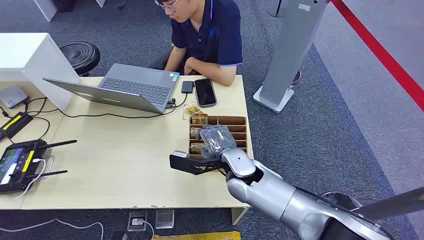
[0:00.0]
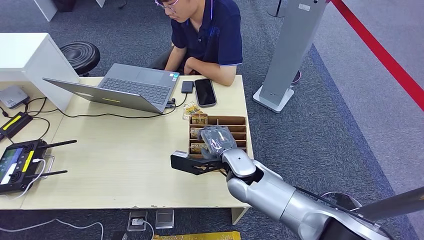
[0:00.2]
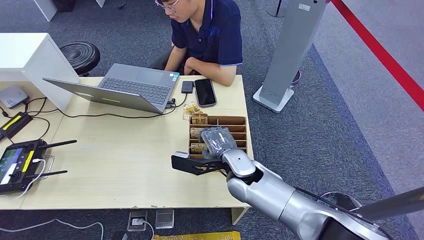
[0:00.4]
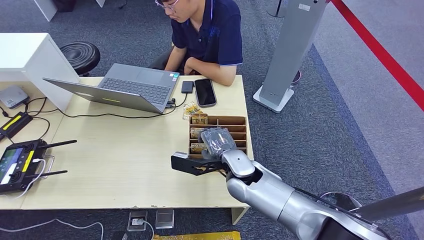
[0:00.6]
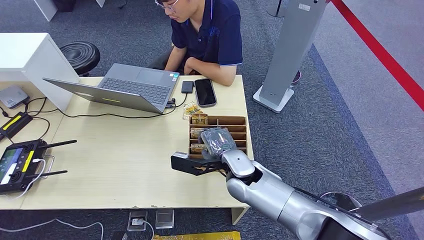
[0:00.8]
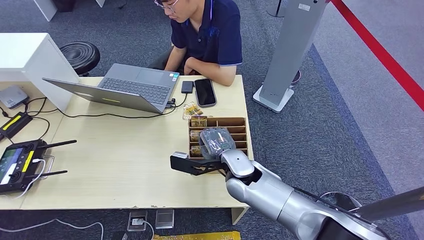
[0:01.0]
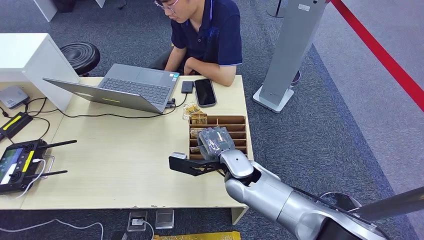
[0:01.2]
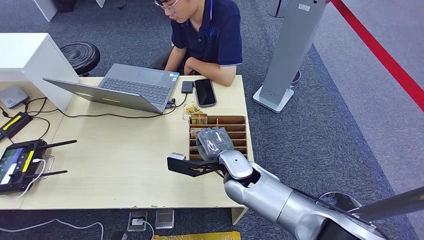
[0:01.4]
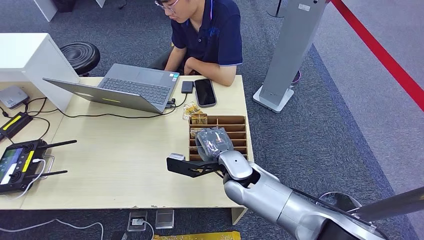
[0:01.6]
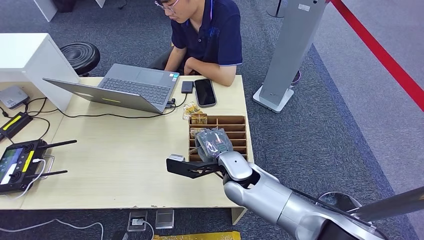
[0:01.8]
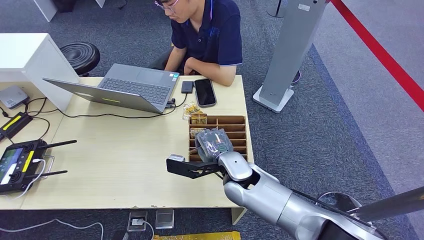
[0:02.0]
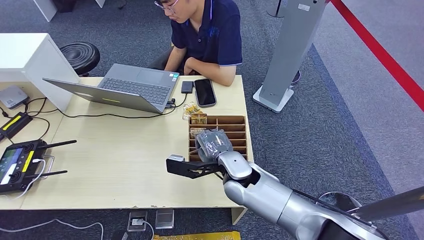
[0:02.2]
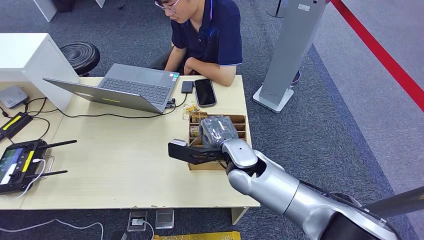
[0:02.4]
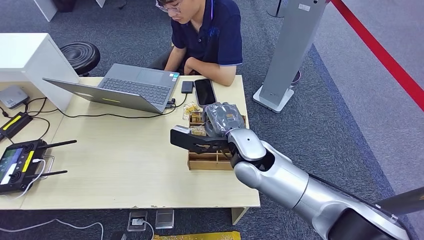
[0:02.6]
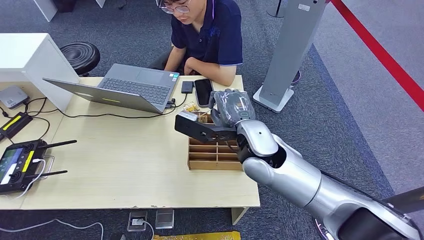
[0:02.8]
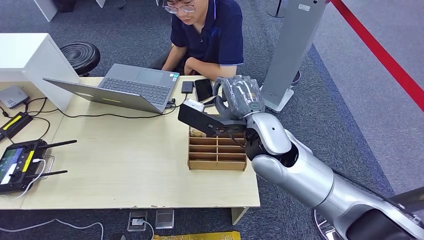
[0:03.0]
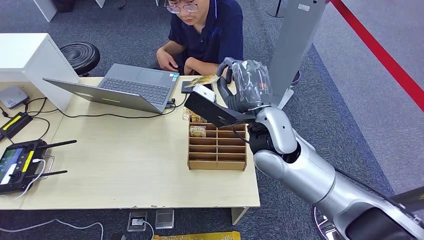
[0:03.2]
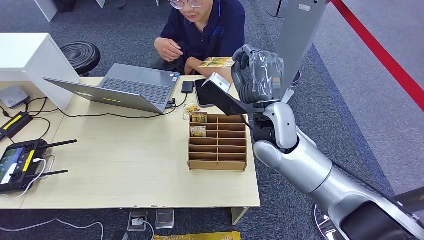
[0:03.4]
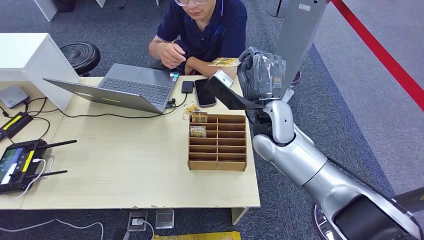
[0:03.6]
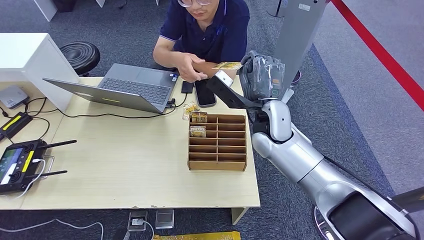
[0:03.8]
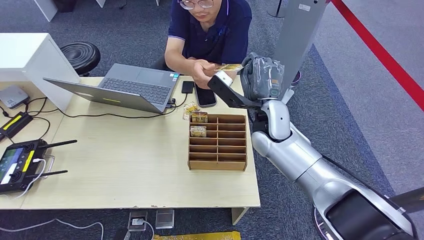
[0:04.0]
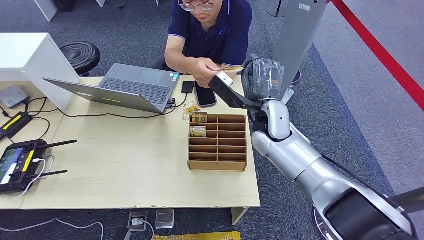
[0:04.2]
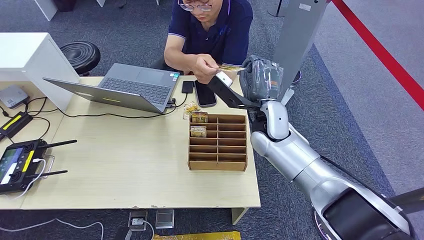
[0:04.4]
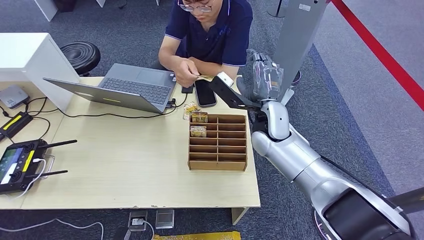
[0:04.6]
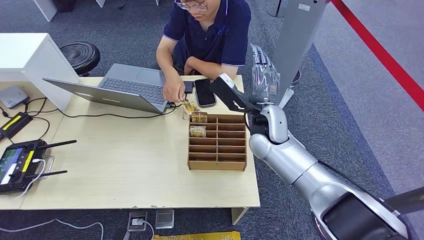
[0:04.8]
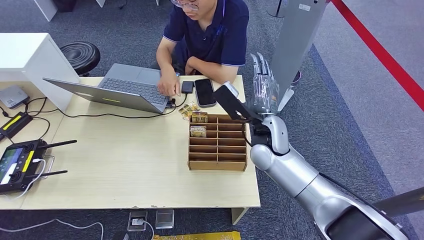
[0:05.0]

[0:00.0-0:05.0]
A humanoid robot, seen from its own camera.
Step, 0:00.0 to 0:03.0: Pick up the key card from the card box.
Step, 0:03.4 to 0:05.0: Hand the key card to the target.
0:01.6 to 0:03.4: The right hand moves upward and to the right, some 15 cm.
0:03.4 to 0:05.0: The right hand heads downward, covering approximately 5 cm.

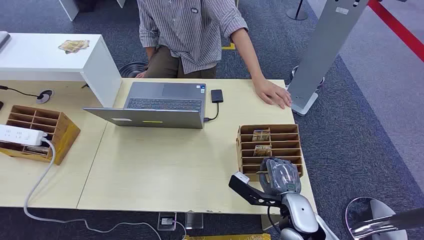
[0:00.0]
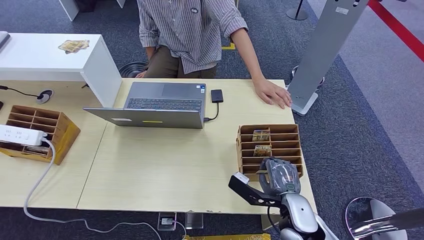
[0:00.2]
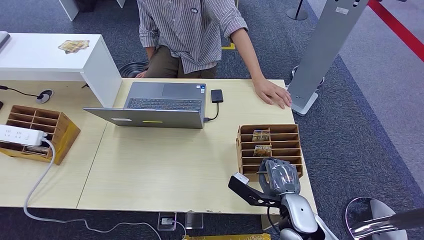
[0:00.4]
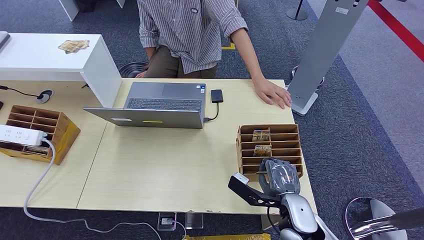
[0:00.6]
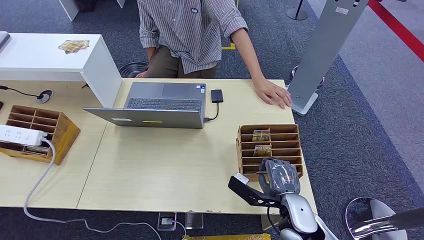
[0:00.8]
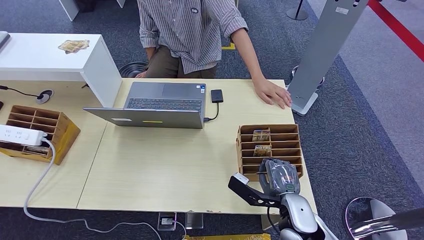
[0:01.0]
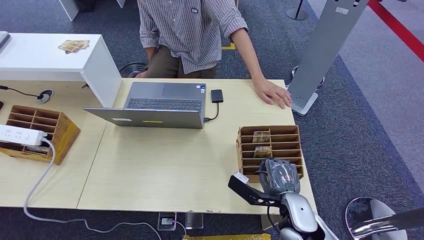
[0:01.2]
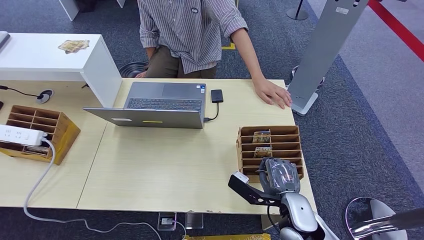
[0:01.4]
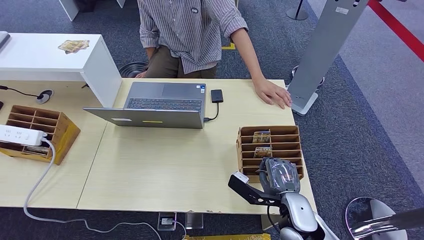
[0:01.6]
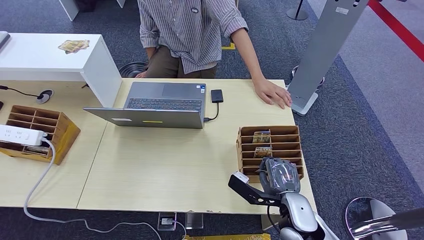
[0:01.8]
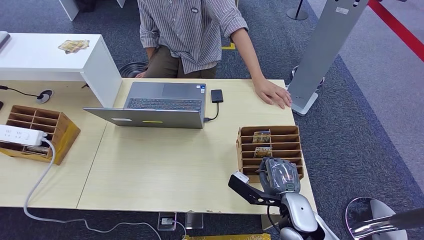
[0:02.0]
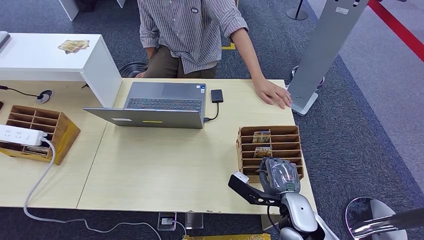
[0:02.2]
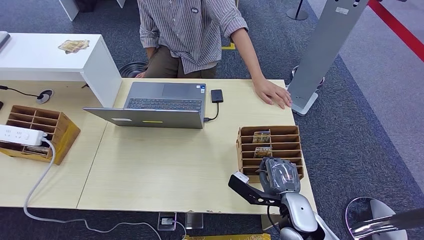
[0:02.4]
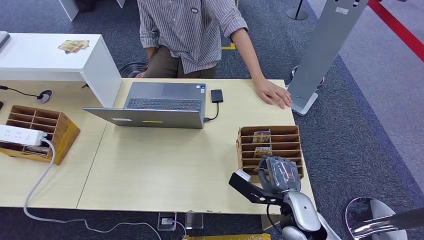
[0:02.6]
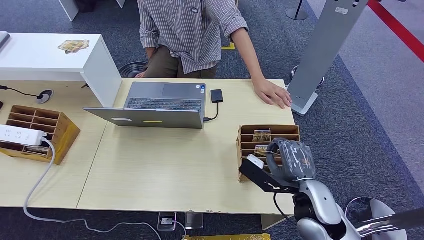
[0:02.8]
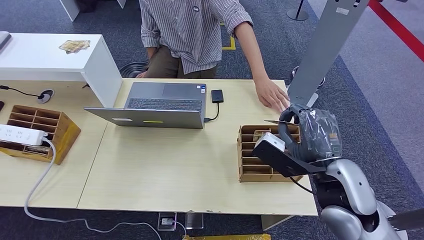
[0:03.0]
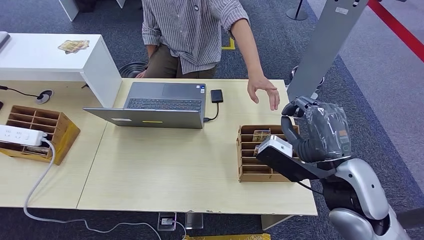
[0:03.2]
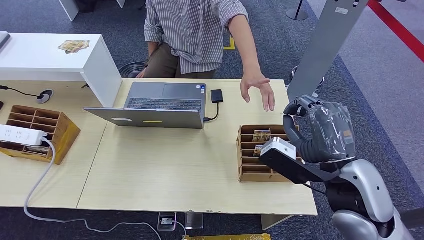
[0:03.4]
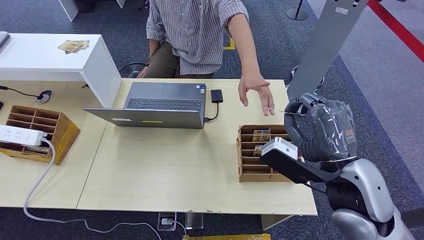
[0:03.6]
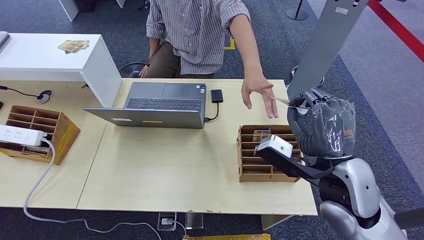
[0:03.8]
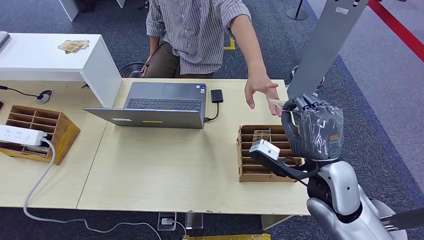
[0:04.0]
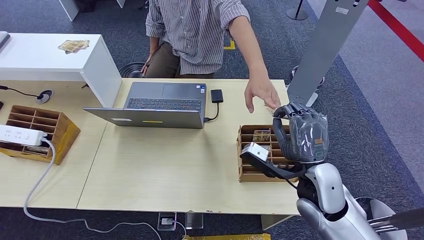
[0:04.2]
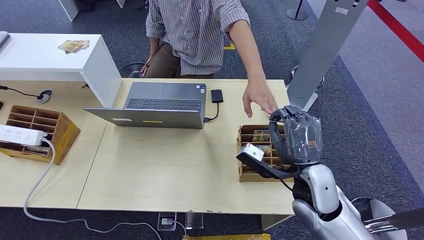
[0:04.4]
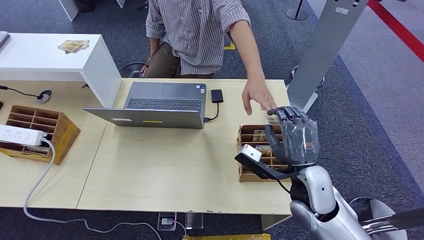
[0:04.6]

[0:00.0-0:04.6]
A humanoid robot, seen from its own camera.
Step, 0:00.0 to 0:02.8: Pick up the key card from the card box.
Step, 0:03.4 to 0:04.6: Hand the key card to the target.
0:01.6 to 0:03.0: The right hand travels upward by approximately 15 cm.
0:03.0 to 0:04.6: The right hand goes approximately 5 cm downward.
